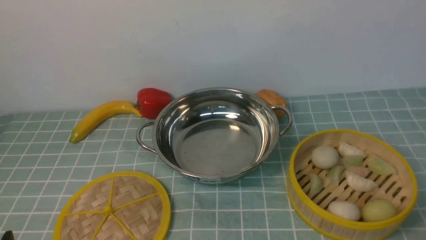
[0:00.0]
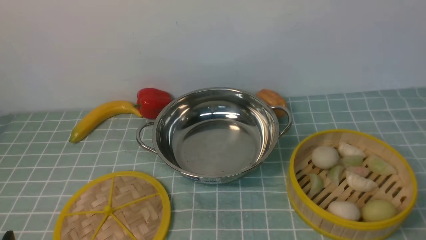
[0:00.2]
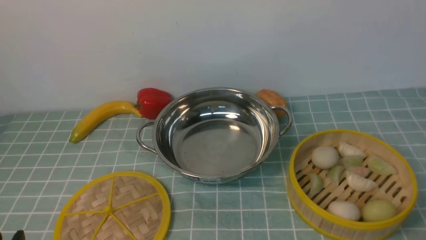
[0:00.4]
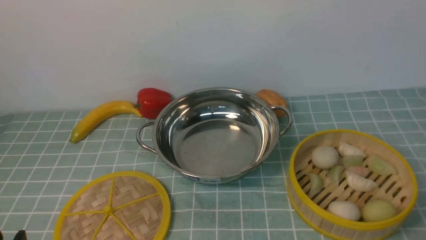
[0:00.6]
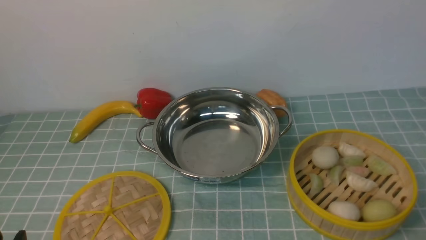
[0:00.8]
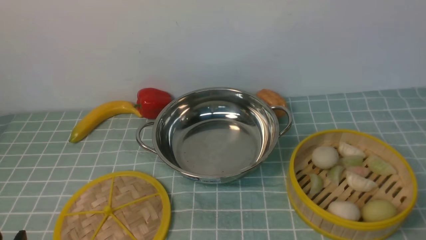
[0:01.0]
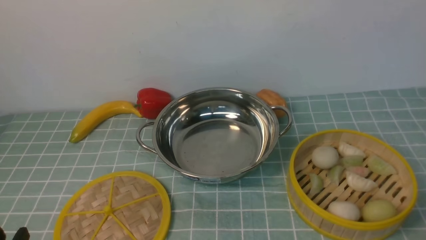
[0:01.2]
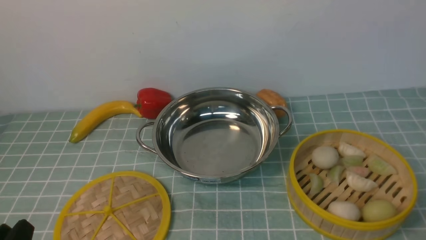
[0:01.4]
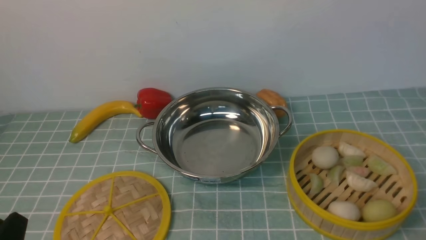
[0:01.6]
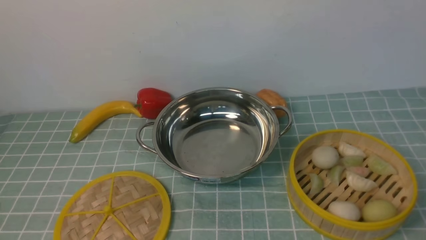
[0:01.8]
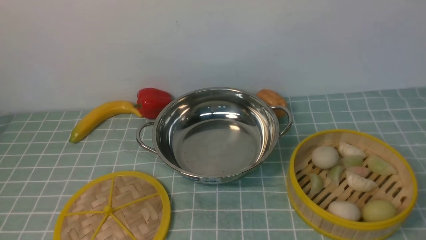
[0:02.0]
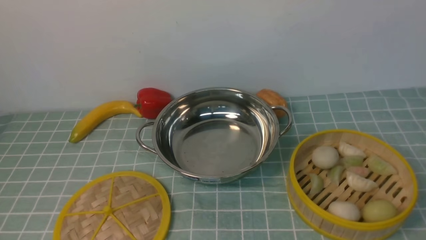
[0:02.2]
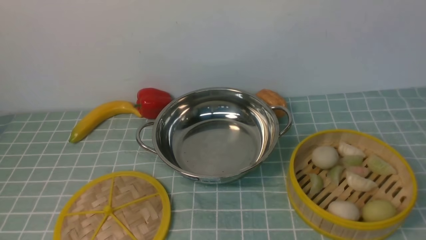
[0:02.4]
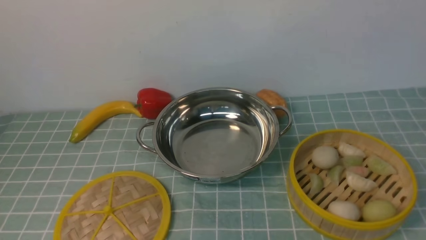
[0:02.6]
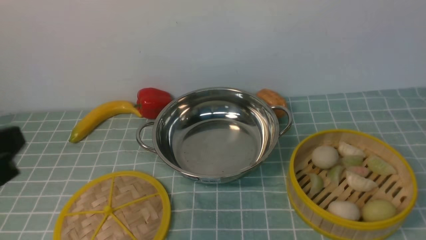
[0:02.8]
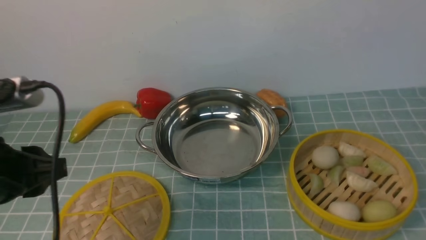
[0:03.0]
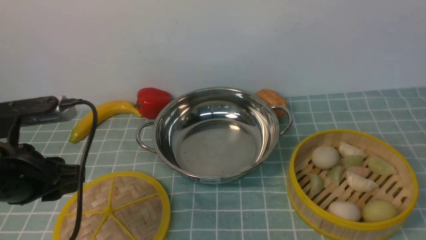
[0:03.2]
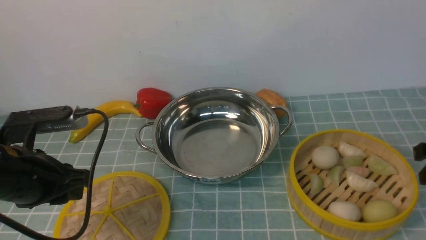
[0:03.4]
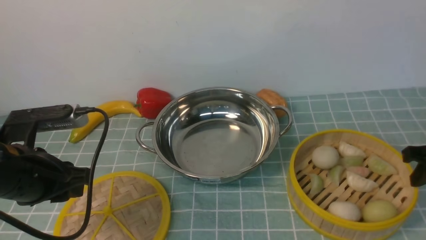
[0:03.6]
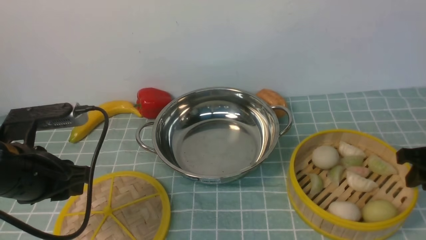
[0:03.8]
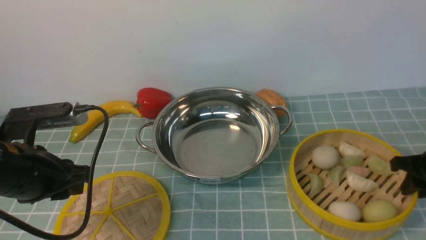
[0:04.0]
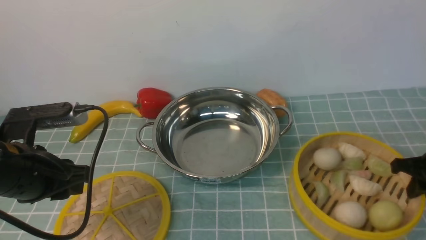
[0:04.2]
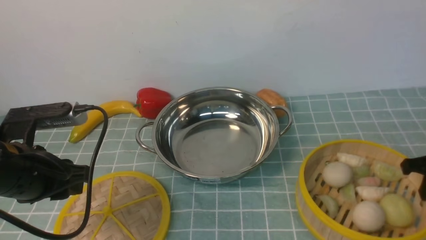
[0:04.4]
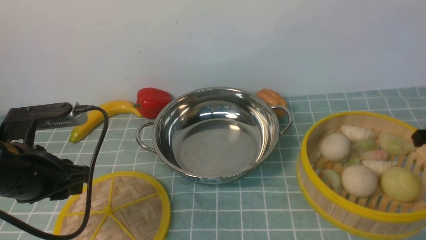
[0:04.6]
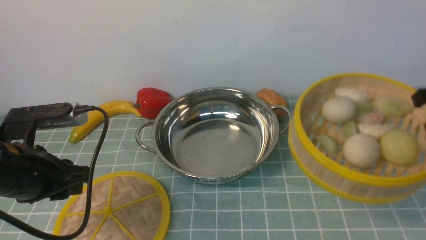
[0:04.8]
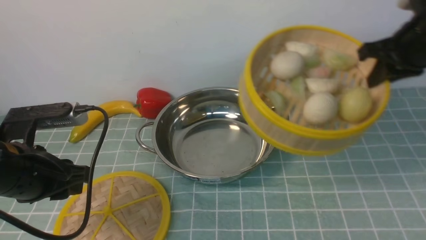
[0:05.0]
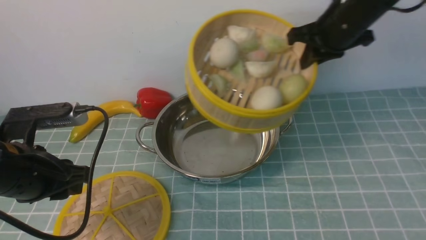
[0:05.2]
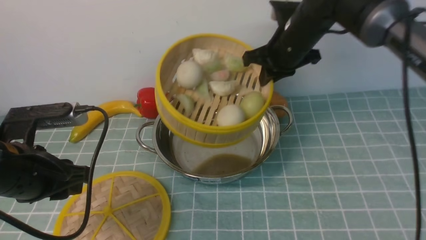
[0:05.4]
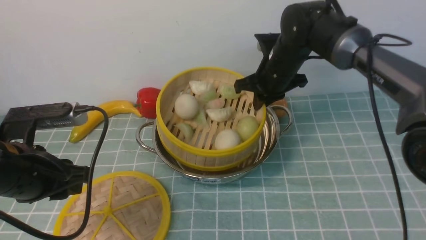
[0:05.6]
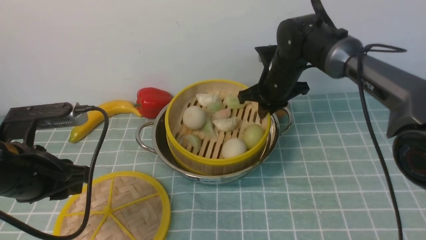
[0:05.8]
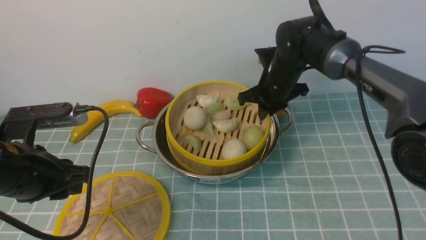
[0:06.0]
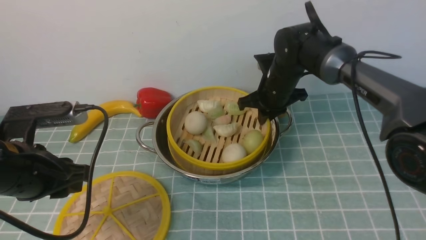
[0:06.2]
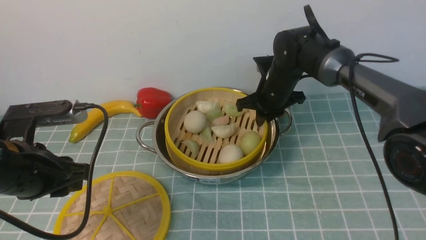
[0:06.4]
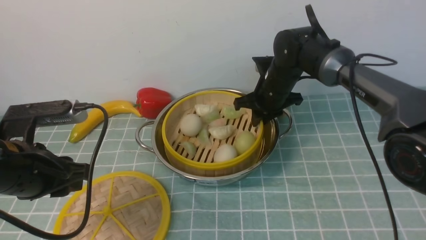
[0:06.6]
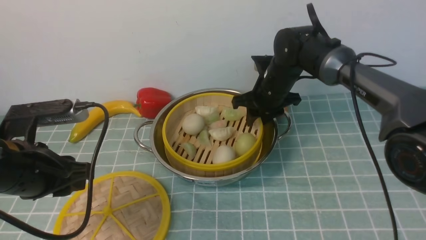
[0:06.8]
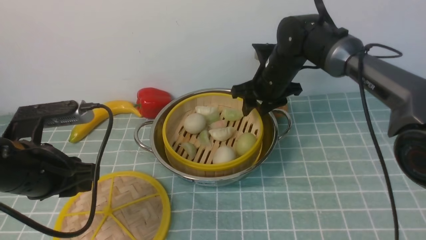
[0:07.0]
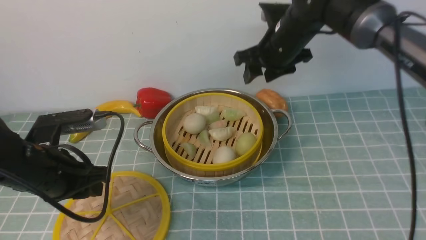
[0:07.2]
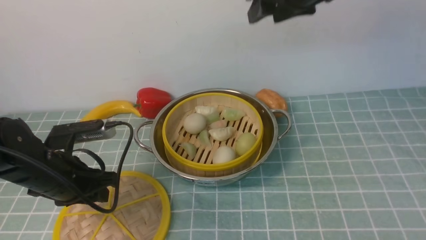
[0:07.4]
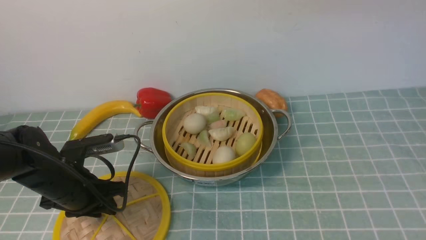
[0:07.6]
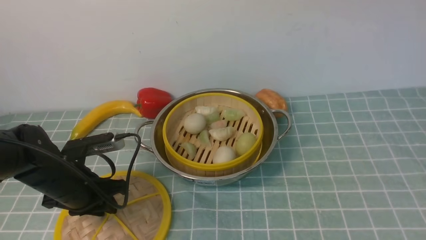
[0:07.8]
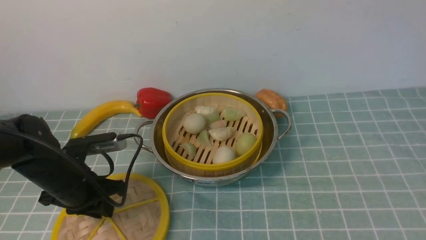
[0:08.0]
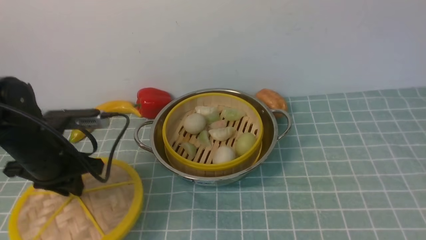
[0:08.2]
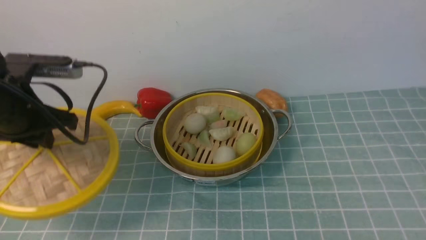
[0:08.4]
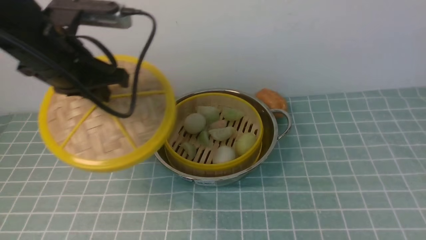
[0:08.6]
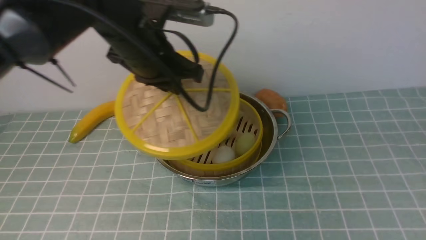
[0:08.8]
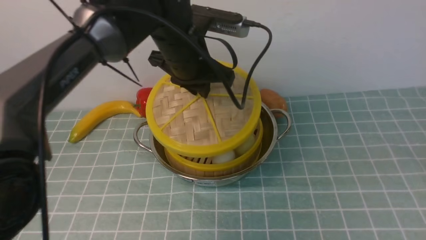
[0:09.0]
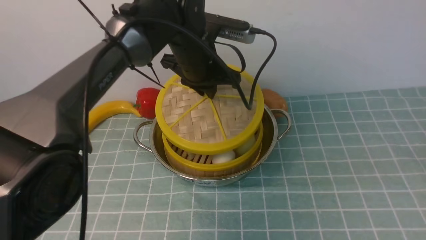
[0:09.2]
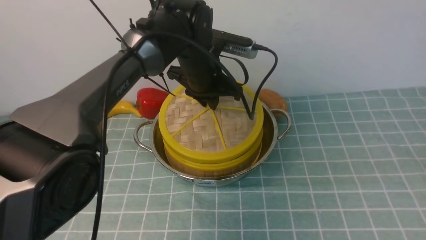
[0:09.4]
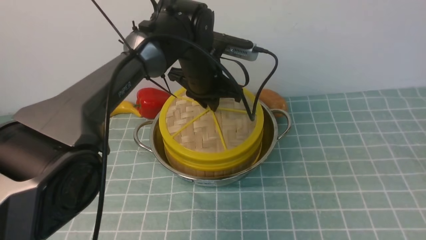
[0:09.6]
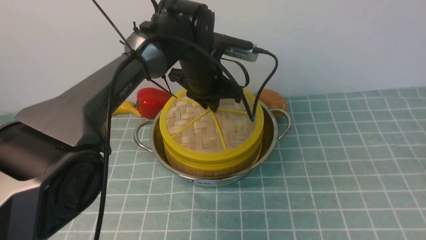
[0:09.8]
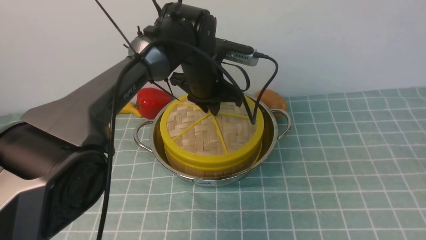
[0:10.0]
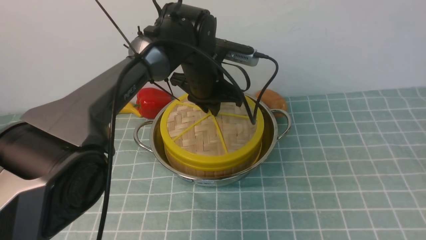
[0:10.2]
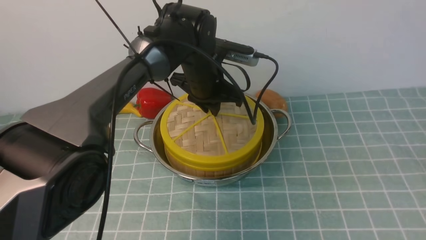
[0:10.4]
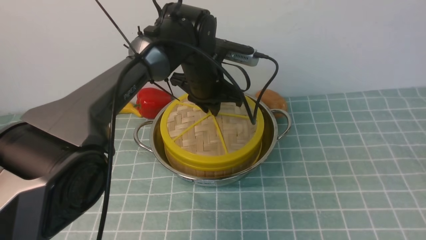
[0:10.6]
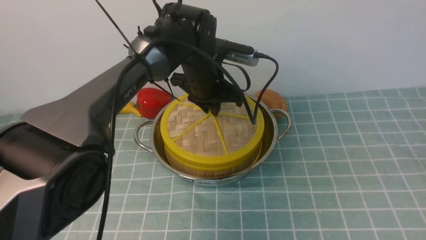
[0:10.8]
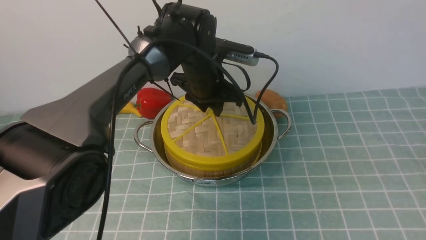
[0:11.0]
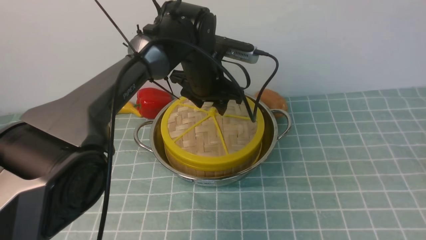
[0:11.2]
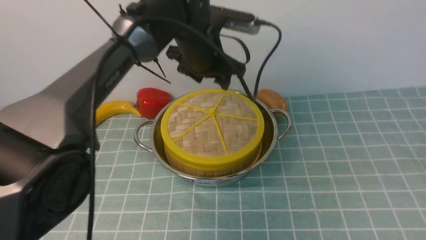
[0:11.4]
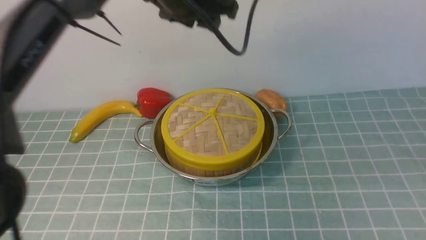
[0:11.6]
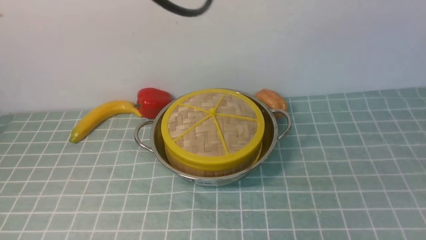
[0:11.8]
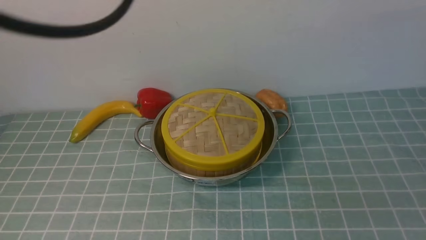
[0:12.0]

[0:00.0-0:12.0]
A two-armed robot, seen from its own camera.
Task of the whole recording: place the steamer in the pot on the blue tablecloth, and put the lid on the steamer.
Step, 0:00.0 to 0:04.8: use the right arm to lift the steamer closest to it.
Step, 0:05.0 to 0:07.4: use the right arm to put the steamer into the iron steamer pot in the middle.
Step, 0:07.6 to 0:08.4: use the left arm to lift the lid of the steamer.
Step, 0:08.6 to 0:11.6: use the left arm to place the steamer lid on the steamer.
0:01.6 to 0:03.0: The right gripper travels upward and forward by some 15 cm. Meanwhile the left gripper goes some 15 cm forward and upward.
0:03.0 to 0:04.4: The right gripper heads downward and forward, covering roughly 20 cm, and closes up, while the left gripper is displaced downward and forward by roughly 5 cm.
0:04.4 to 0:06.0: The right gripper shifts approximately 30 cm to the left and forward.
0:06.0 to 0:07.6: The left gripper heads downward and forward, covering roughly 10 cm, while the right gripper moves upward and backward, some 35 cm, and opens.
0:07.6 to 0:09.0: The right gripper moves backward, downward and to the right, about 30 cm, while the left gripper heads to the right, upward and forward, covering about 25 cm.
0:09.0 to 0:10.4: The left gripper moves downward, approximately 5 cm.
0:10.4 to 0:12.0: The right gripper travels downward by roughly 5 cm, and closes, while the left gripper heads upward and backward, covering some 35 cm, and opens, then closes once more.

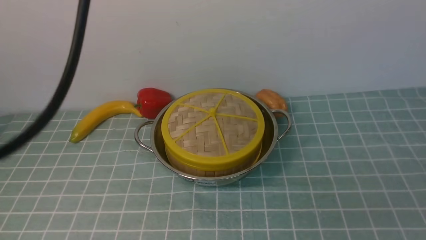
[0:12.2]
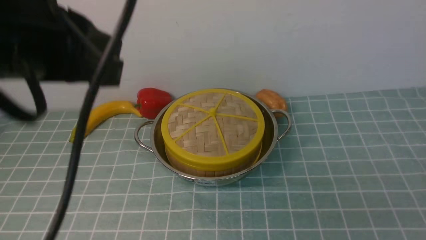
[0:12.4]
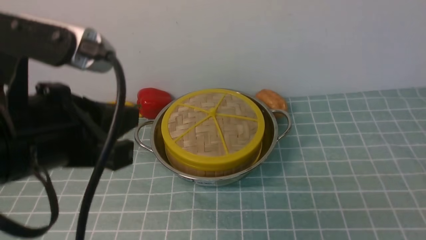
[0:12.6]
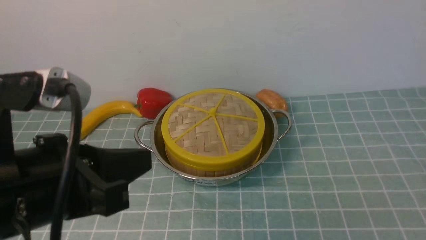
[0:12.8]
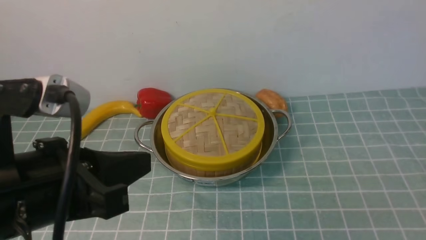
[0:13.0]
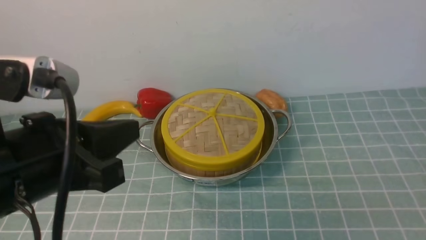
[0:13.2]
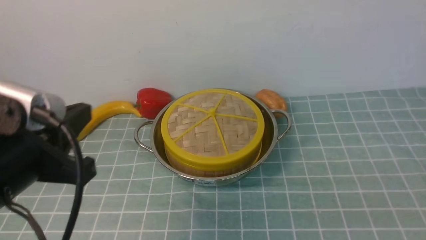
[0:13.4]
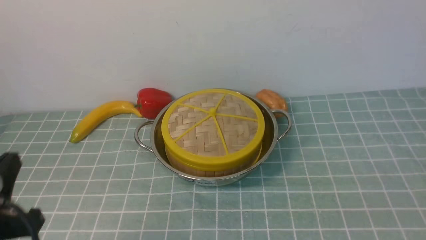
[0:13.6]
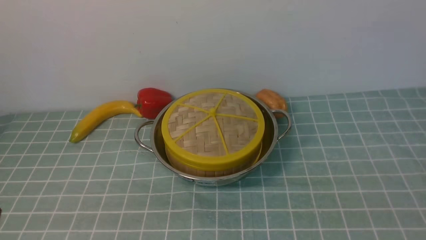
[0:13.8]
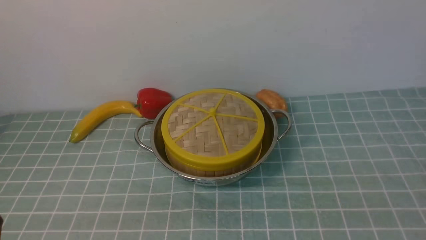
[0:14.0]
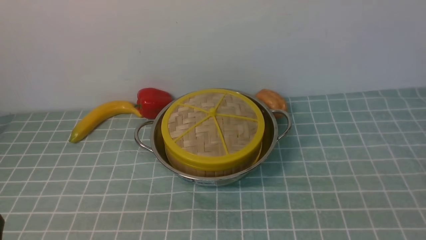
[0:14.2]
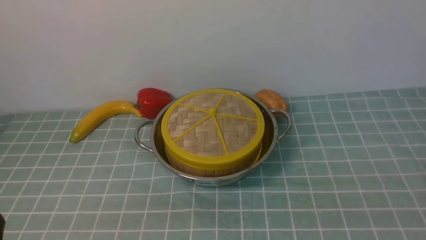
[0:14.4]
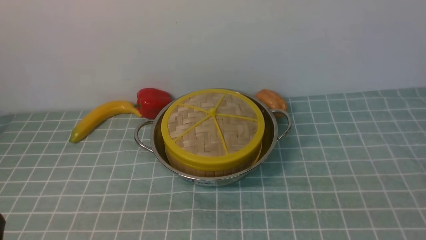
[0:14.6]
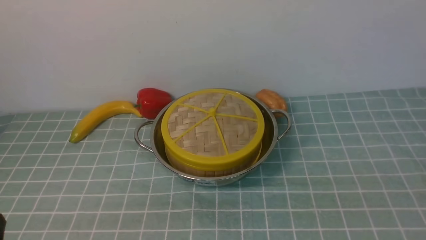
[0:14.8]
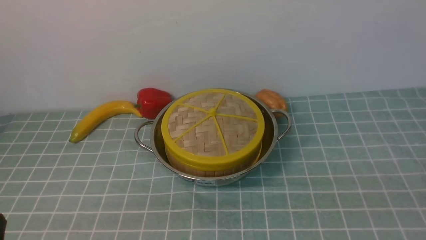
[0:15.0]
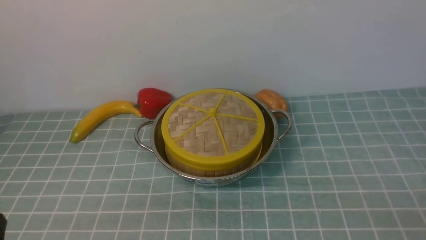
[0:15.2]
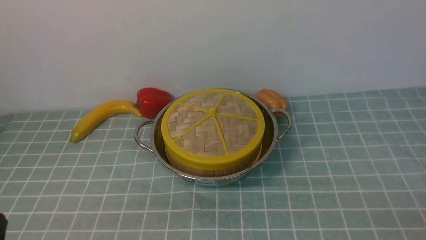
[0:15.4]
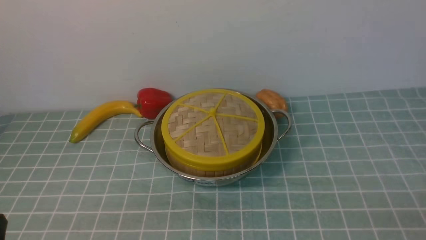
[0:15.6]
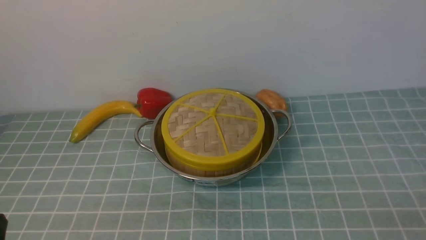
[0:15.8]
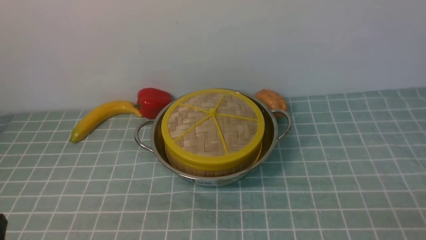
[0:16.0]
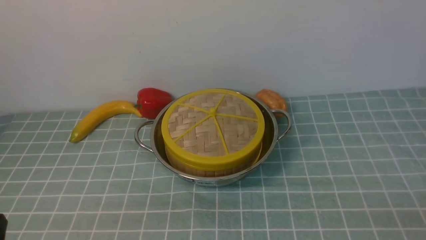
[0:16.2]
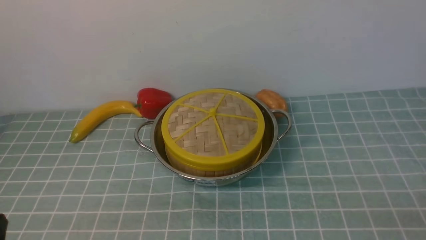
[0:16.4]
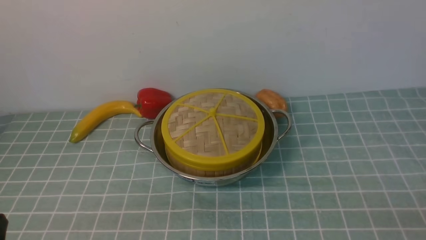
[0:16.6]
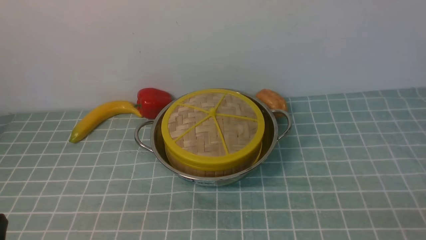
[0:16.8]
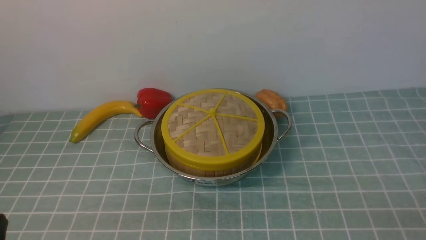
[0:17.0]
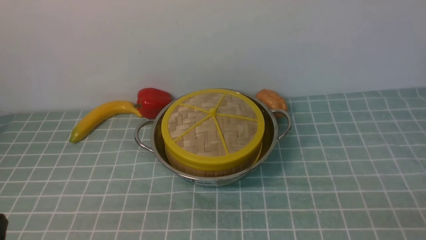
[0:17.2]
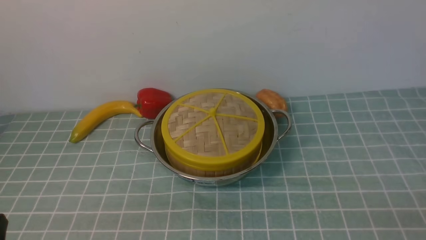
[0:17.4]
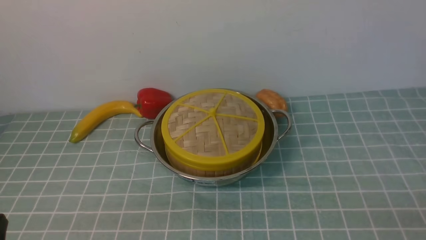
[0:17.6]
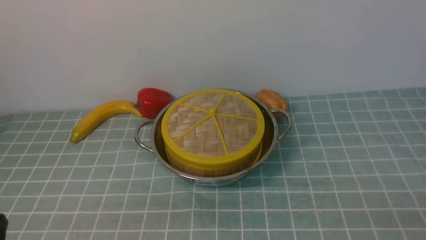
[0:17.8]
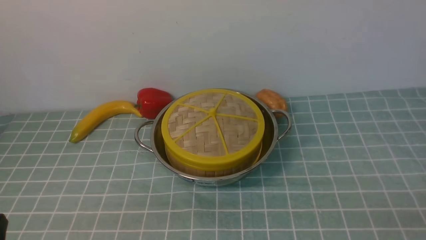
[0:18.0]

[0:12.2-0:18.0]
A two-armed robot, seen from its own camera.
Task of the whole recording: place the steamer in the pot on the blue tablecloth, and put the lid on the steamer.
0:12.2 to 0:13.6: The left gripper heads downward, backward and to the left, covering approximately 25 cm.
0:13.6 to 0:15.0: The left gripper goes roughly 5 cm downward.
0:16.6 to 0:18.0: Neither gripper changes place.
